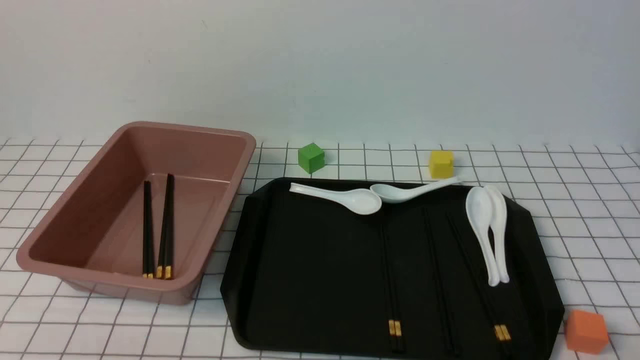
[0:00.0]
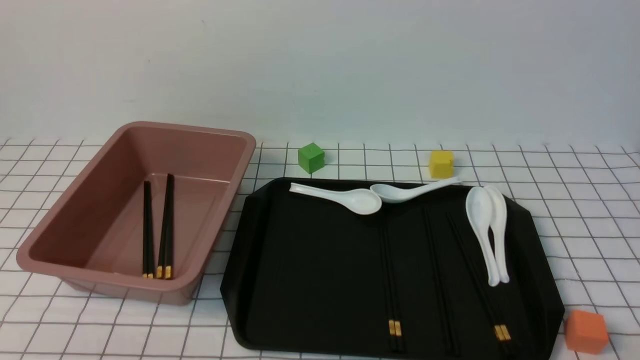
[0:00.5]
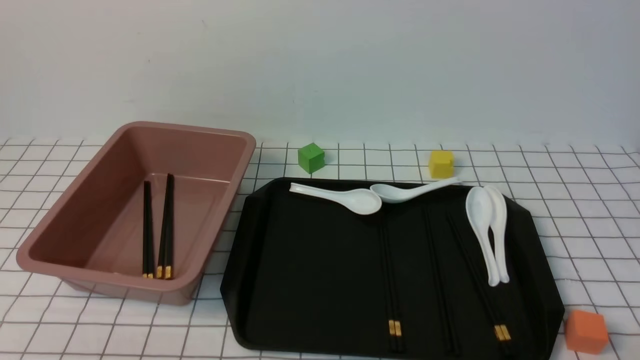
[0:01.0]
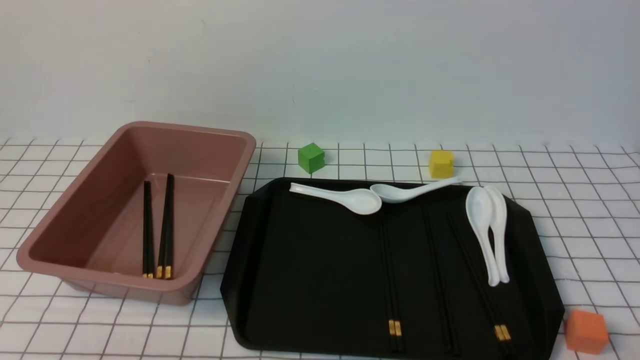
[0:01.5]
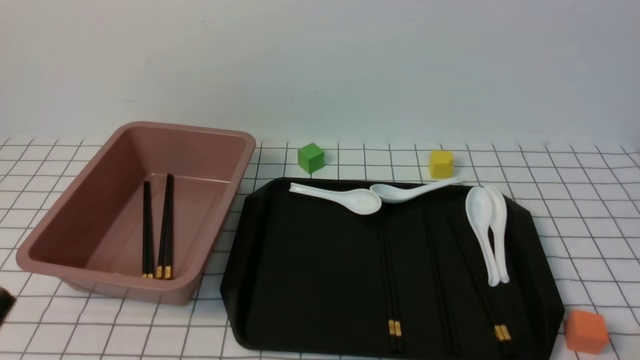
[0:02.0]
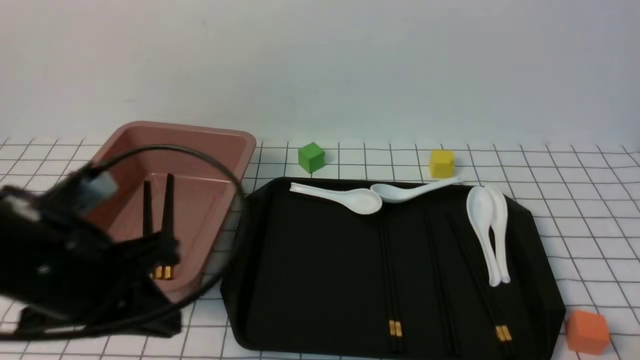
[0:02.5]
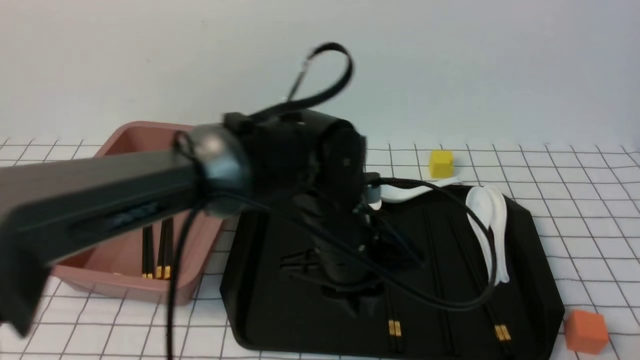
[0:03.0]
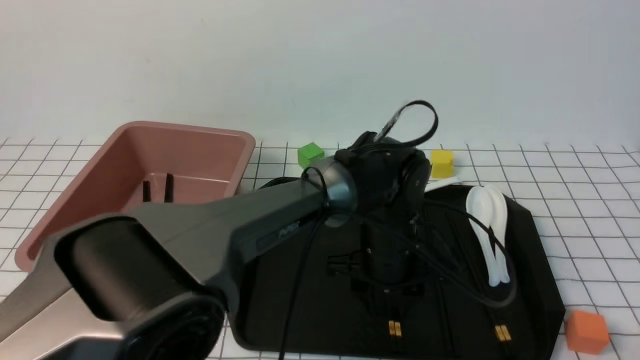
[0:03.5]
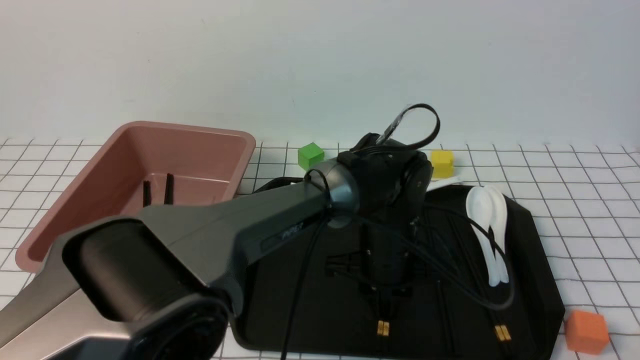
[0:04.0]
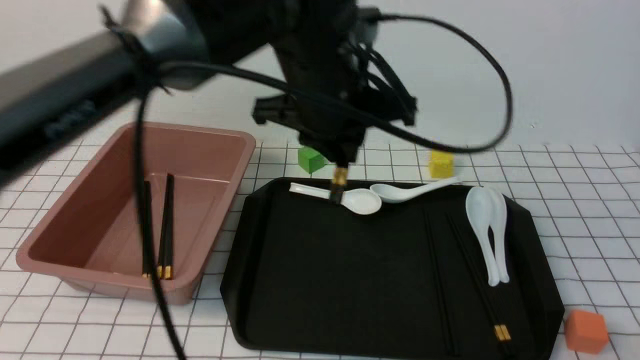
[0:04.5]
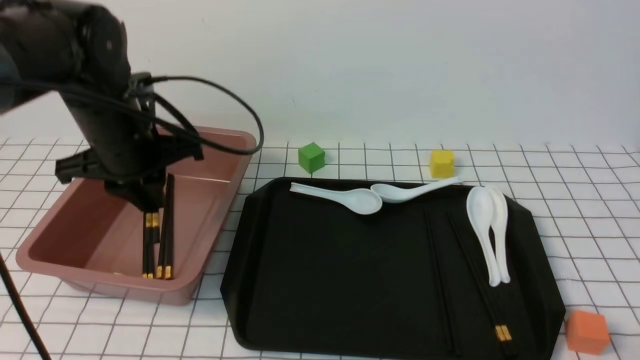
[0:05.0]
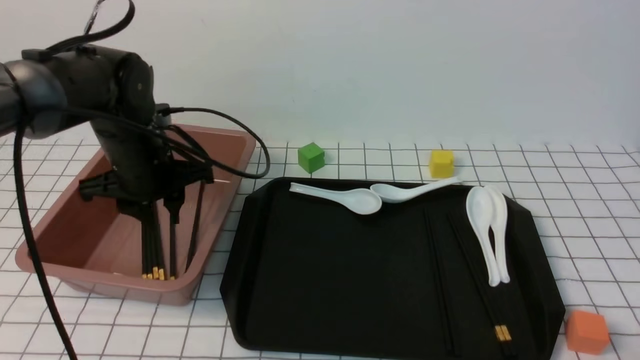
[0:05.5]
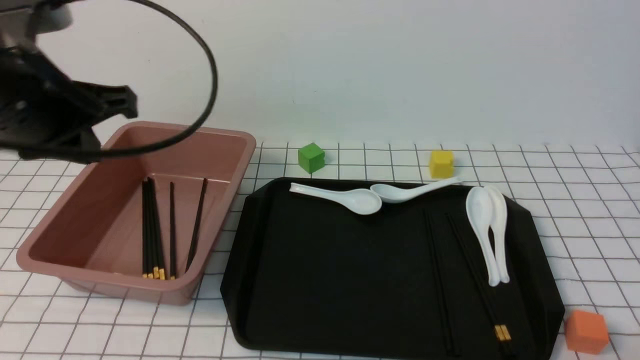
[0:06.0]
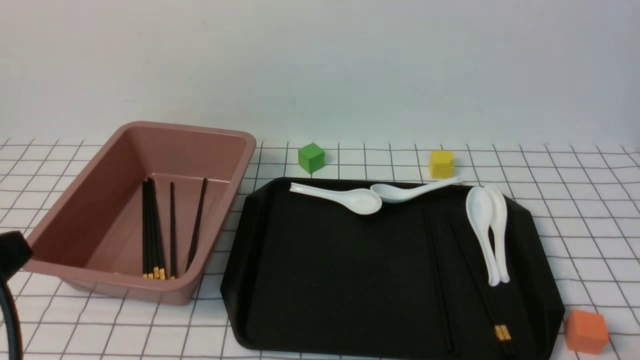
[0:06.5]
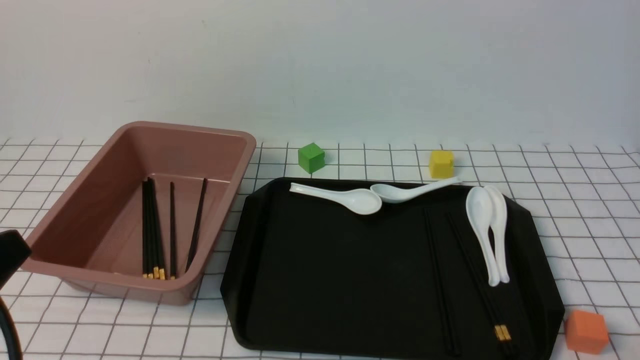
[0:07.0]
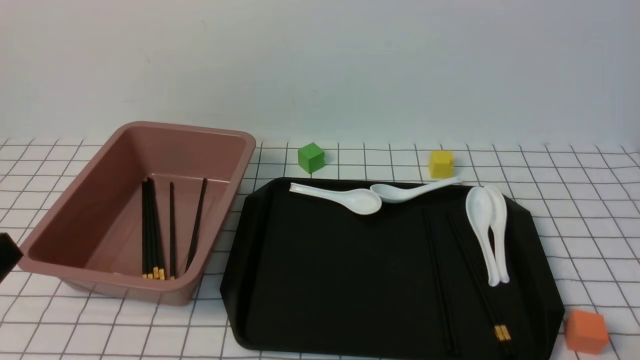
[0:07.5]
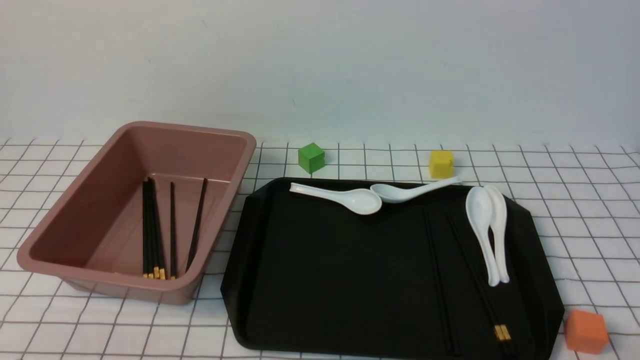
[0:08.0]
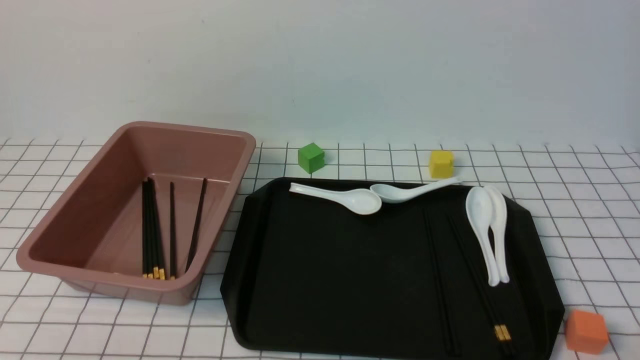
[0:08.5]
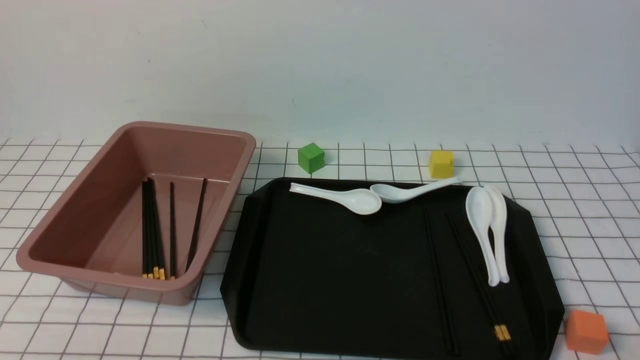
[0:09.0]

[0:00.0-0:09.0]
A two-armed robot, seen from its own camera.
Step, 0:00.0 to 0:04.0: use the left arm to grab a pair of chopsticks.
Step, 0:05.0 to 0:05.5: use the left arm to put the chopsticks into the lunch box.
0:02.0 to 0:04.5: The left gripper shifts approximately 35 cm forward and to the right, and opens, then closes once more.
0:04.5 to 0:07.0: The left gripper shifts about 35 cm backward and to the left, and closes its fingers.
0:07.0 to 0:09.0: The left gripper goes about 15 cm downward.
